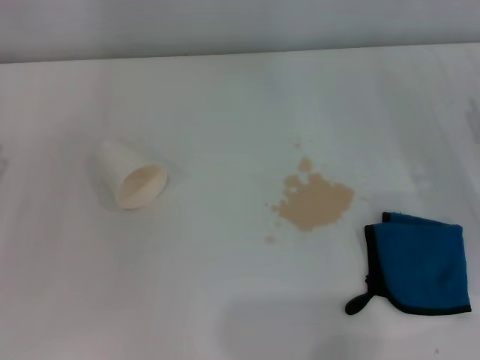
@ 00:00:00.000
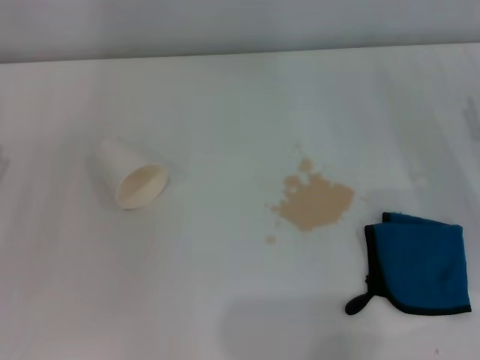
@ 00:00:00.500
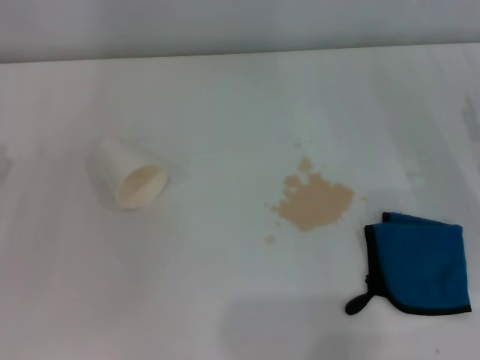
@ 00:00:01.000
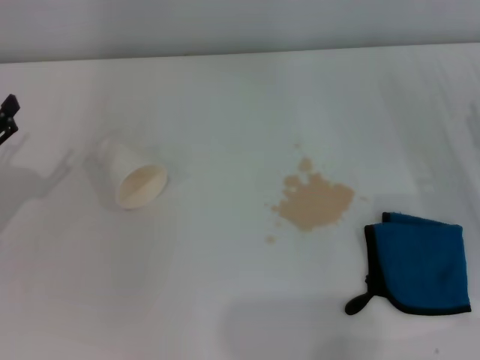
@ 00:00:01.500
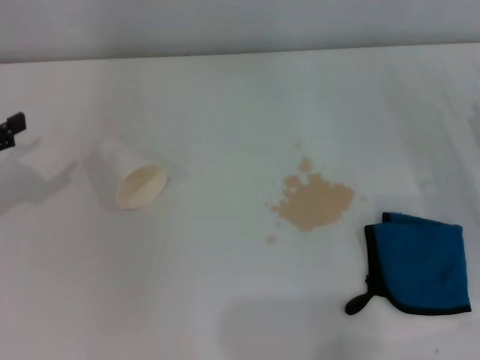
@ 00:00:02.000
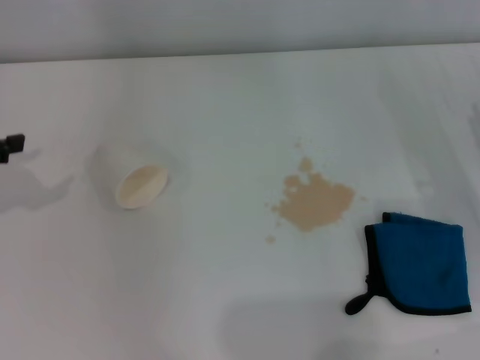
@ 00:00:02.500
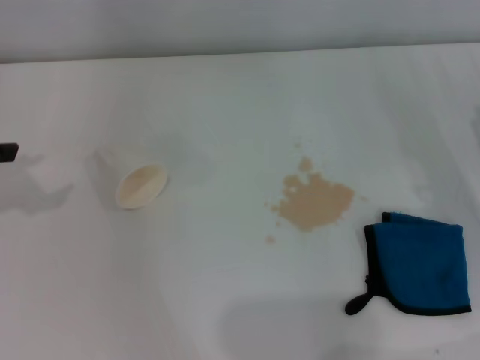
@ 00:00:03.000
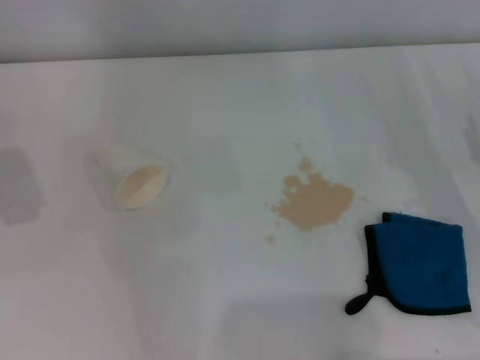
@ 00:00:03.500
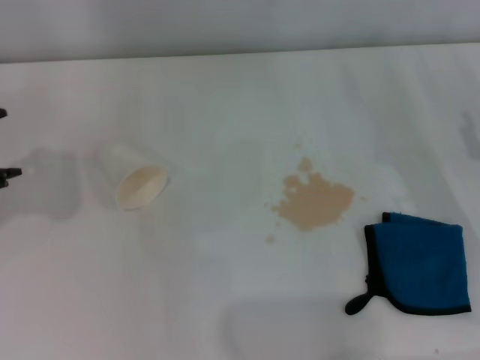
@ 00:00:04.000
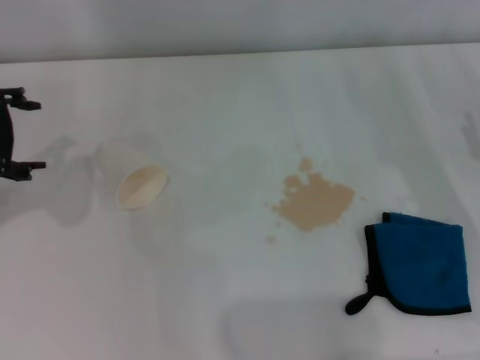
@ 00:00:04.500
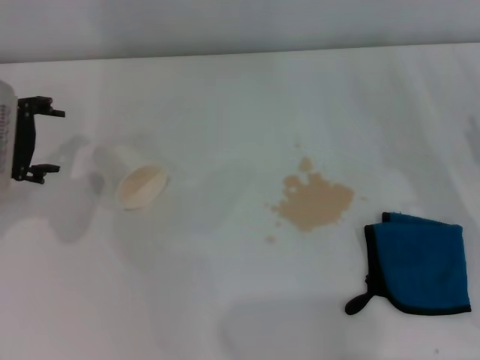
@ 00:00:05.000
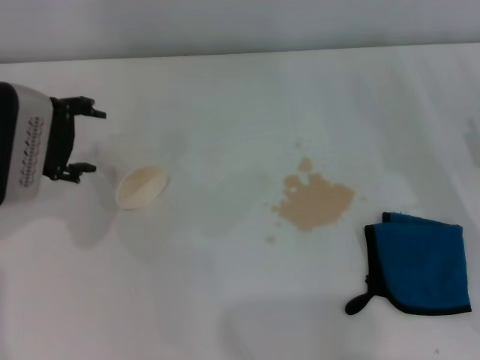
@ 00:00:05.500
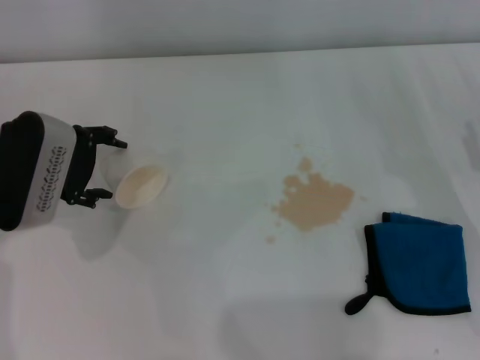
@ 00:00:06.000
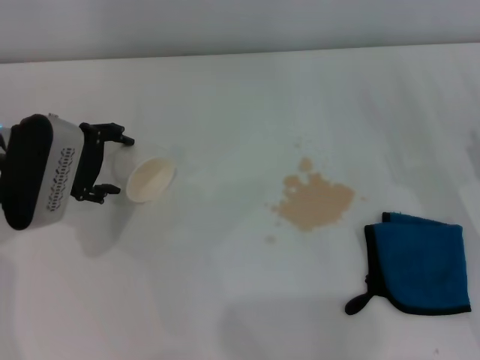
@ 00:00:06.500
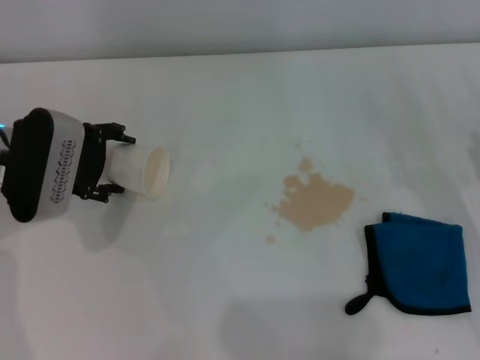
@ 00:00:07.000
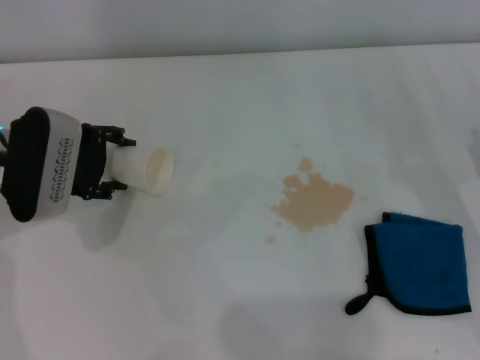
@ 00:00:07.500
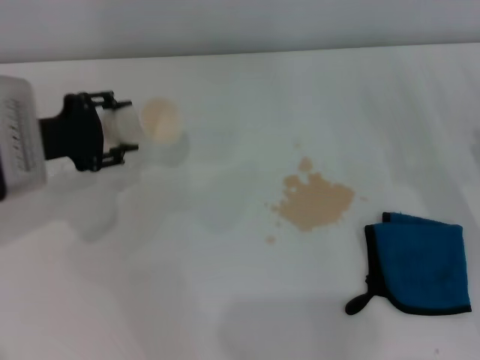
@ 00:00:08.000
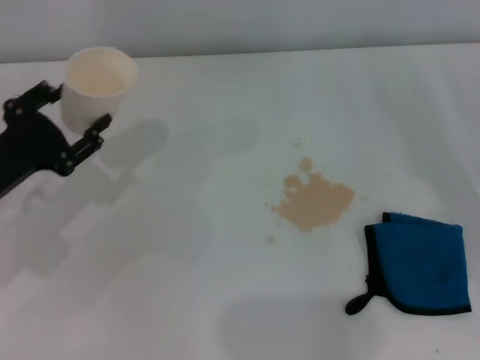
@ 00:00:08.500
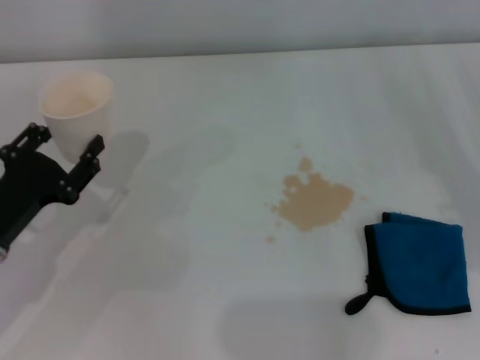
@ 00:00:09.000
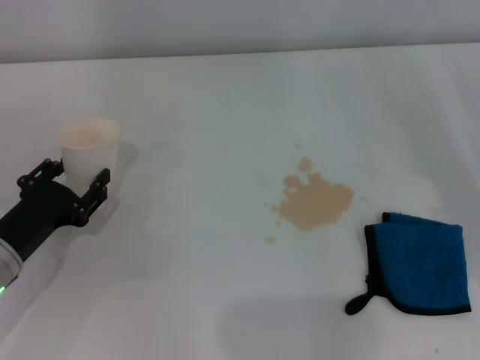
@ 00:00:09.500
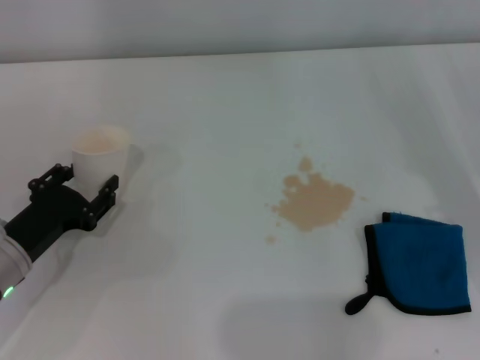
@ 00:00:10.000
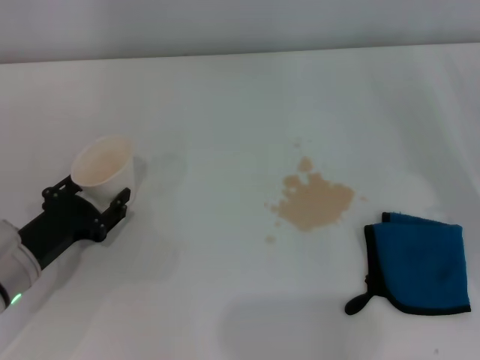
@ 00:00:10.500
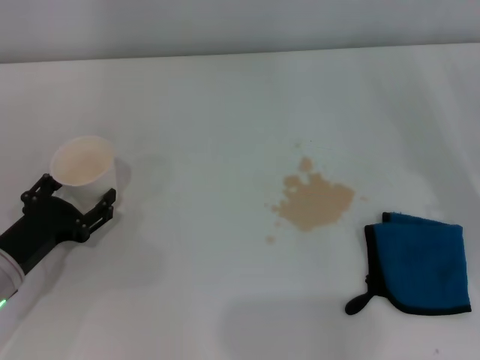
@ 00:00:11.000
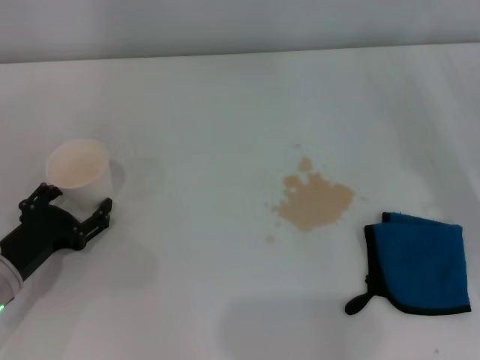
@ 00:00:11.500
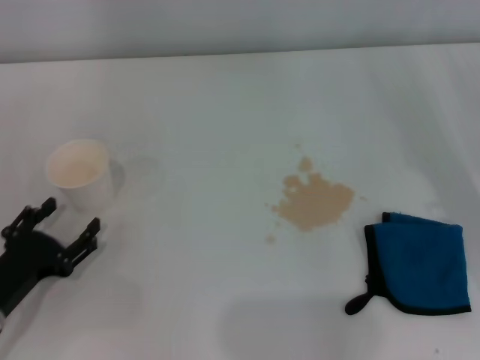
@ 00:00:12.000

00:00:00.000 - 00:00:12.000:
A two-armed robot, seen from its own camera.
Step, 00:00:00.000 - 00:00:07.000: Grasp the paper cup with the left gripper.
Step, 00:00:08.000 - 00:00:11.500: Stand the paper cup upright with the left gripper.
00:00:04.000 - 00:00:06.000: The left gripper moves downward and to the right, approximately 10 cm.
00:00:06.000 - 00:00:08.000: The left gripper closes.
00:00:08.000 - 00:00:10.000: The left gripper goes roughly 15 cm downward and backward.
00:00:10.000 - 00:00:12.000: The left gripper changes place by approximately 5 cm, and opens.

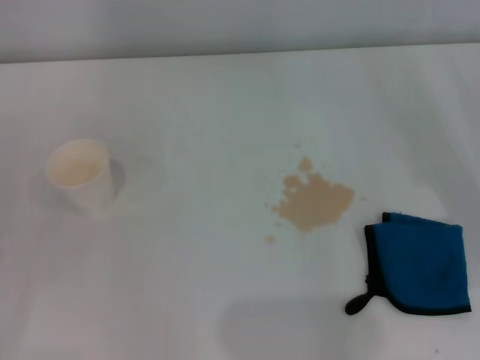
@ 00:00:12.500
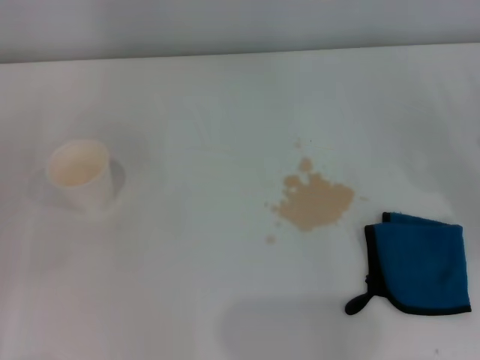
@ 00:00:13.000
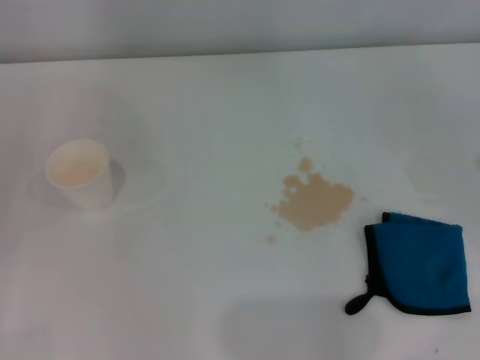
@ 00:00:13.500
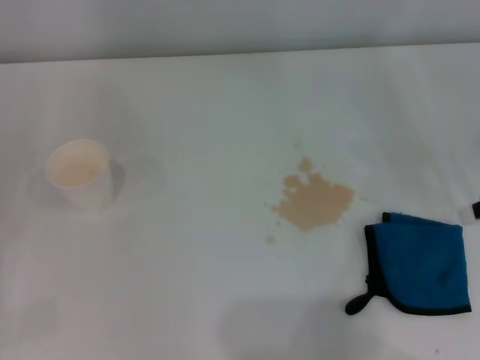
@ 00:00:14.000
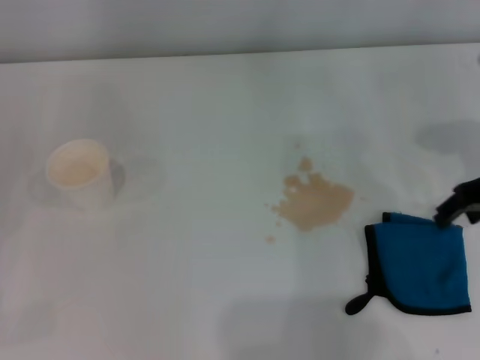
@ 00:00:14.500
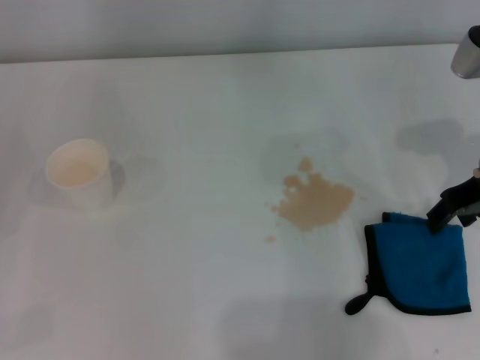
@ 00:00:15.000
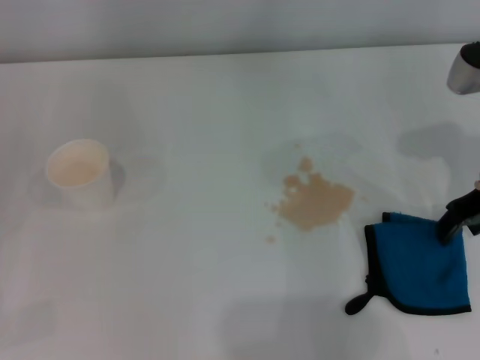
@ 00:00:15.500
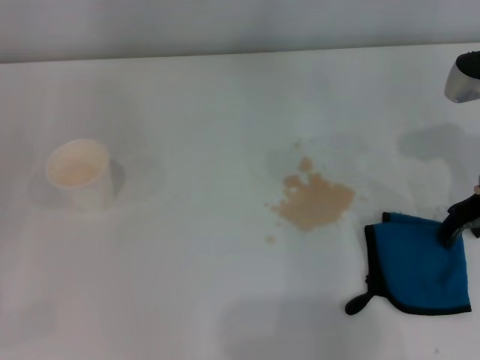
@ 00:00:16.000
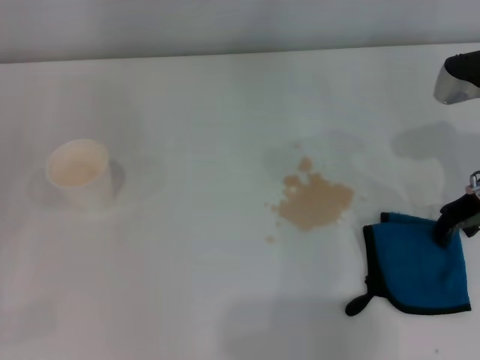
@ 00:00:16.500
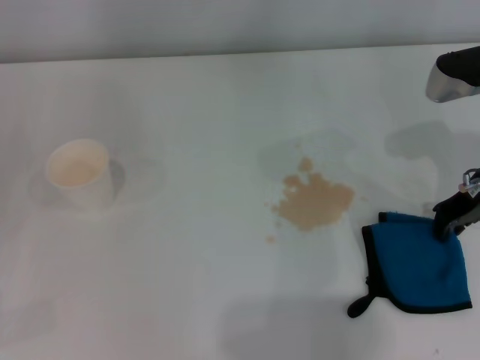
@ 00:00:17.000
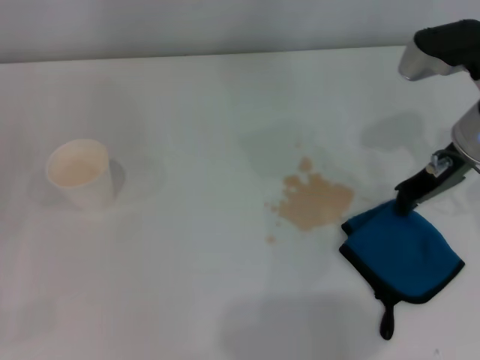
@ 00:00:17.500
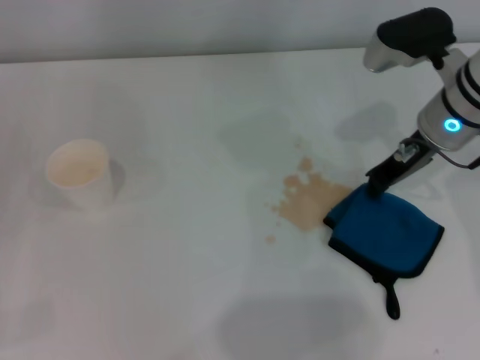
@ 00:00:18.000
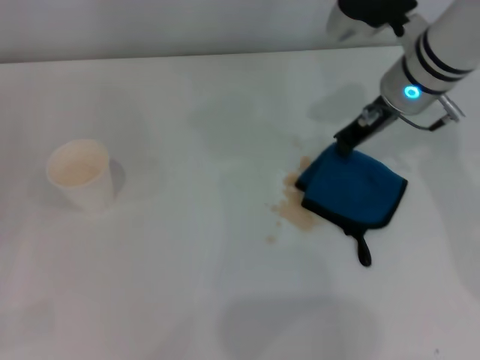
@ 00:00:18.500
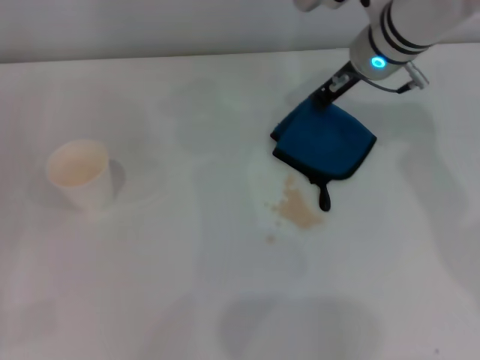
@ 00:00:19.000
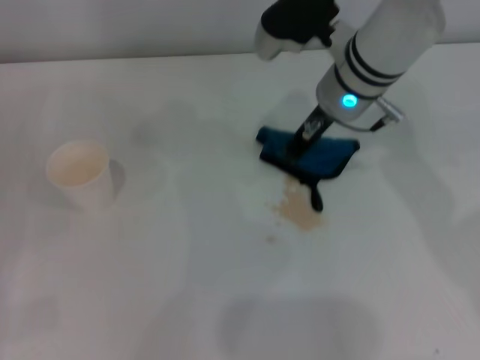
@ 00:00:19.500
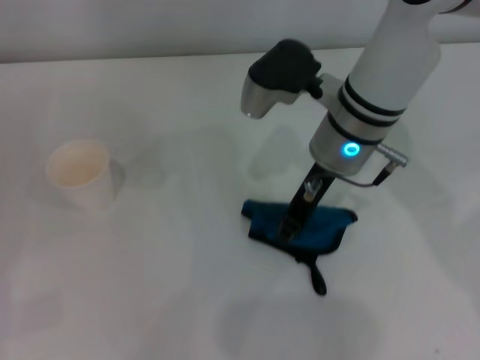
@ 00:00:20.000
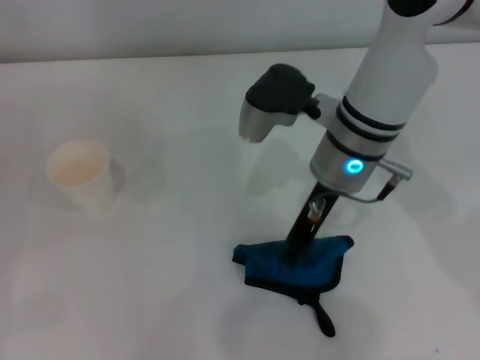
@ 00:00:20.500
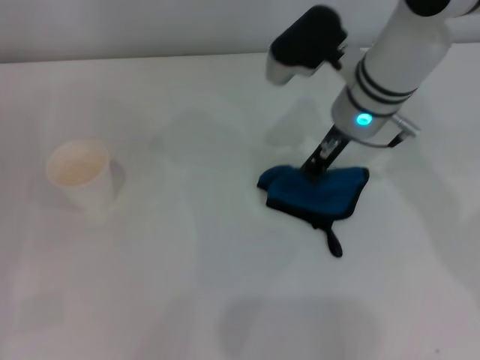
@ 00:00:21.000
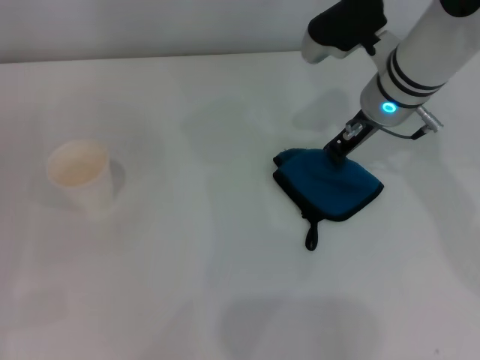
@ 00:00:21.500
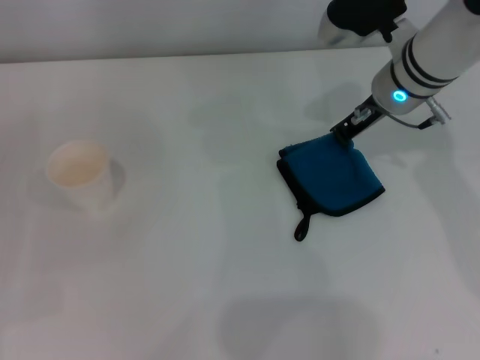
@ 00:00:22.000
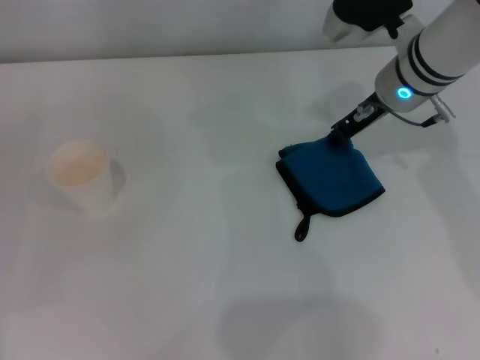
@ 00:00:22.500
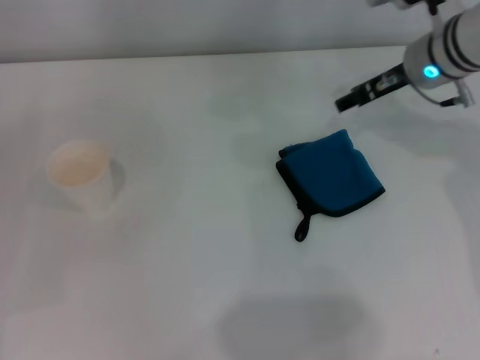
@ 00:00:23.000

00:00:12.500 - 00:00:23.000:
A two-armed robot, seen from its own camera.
Step, 00:00:12.500 - 00:00:17.000: Grasp the rag with the right gripper.
Step, 00:00:17.500 - 00:00:21.000: Wipe the stains off the table with the right gripper.
Step, 00:00:21.500 - 00:00:22.000: Place the rag on the table with the right gripper.
00:00:12.500 - 00:00:14.500: The right gripper goes some 20 cm forward, upward and to the left.
00:00:14.500 - 00:00:16.500: The grippers make only small movements.
00:00:16.500 - 00:00:19.000: The right gripper is displaced to the left and forward by some 15 cm, and closes.
00:00:21.000 - 00:00:23.000: The right gripper heads to the right, covering about 10 cm, and opens up.

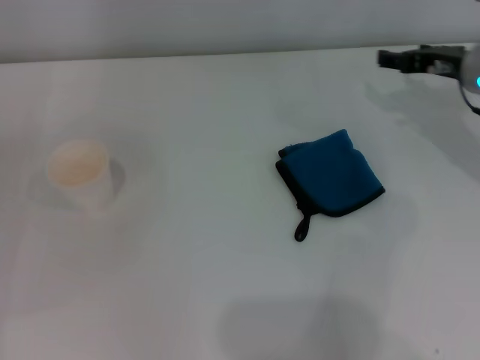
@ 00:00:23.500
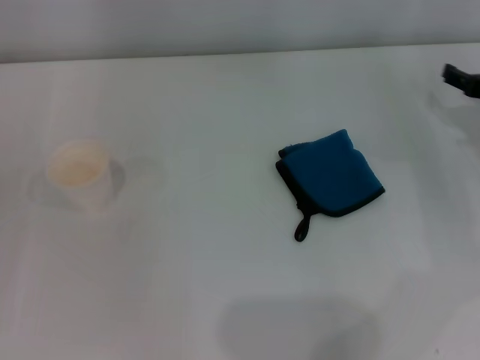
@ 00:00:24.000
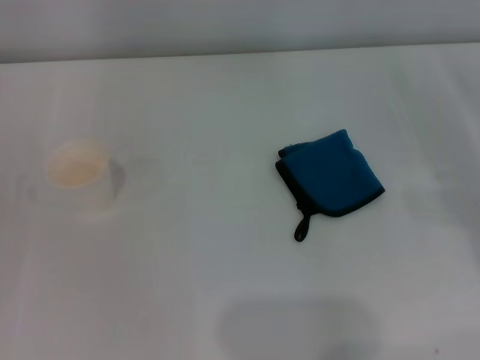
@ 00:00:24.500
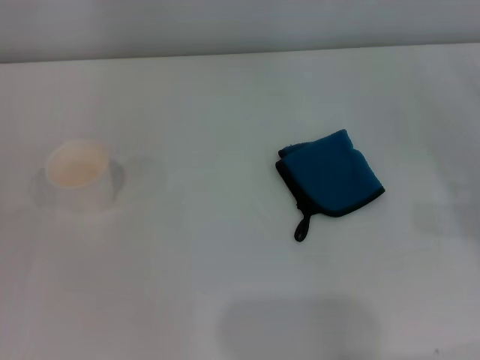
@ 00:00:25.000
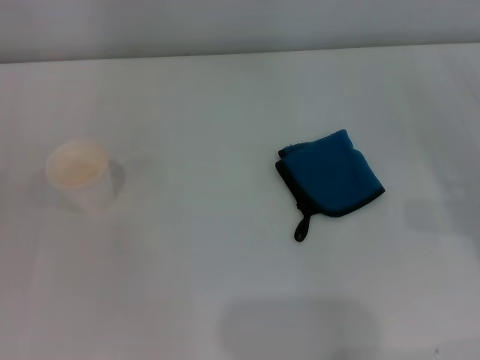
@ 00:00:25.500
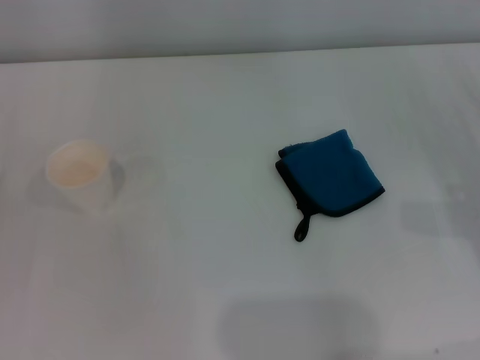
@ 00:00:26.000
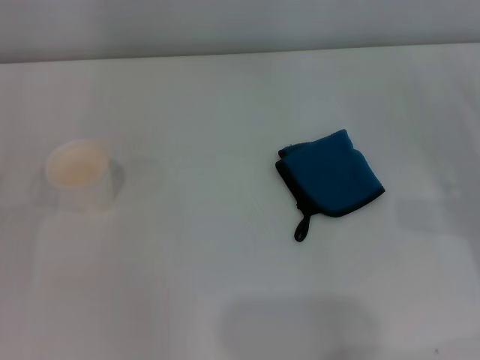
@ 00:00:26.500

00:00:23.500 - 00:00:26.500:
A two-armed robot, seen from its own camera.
00:00:23.500 - 00:00:25.000: The right gripper heads backward, to the right and downward, covering approximately 20 cm.
